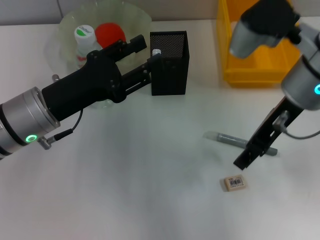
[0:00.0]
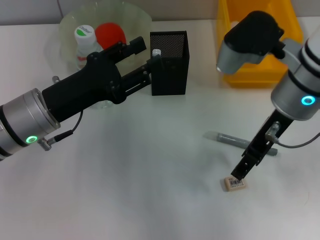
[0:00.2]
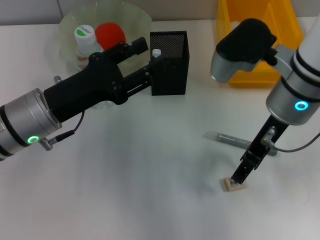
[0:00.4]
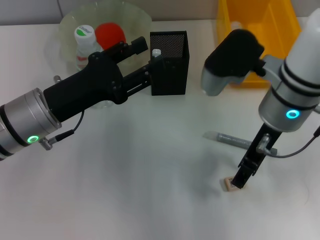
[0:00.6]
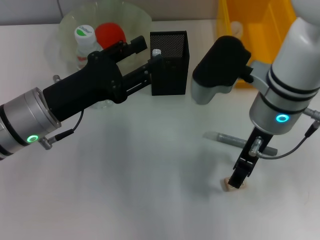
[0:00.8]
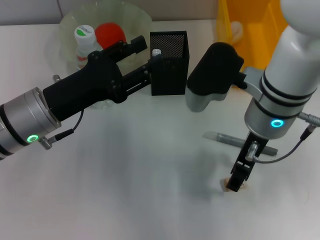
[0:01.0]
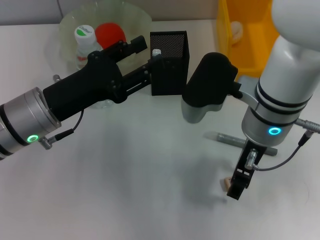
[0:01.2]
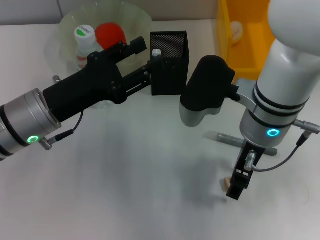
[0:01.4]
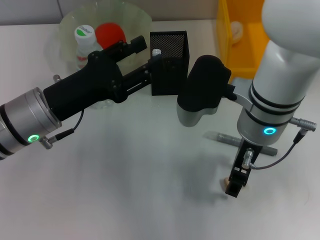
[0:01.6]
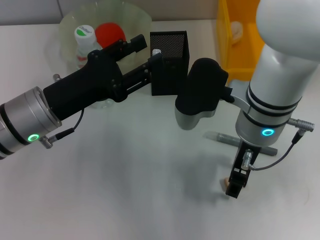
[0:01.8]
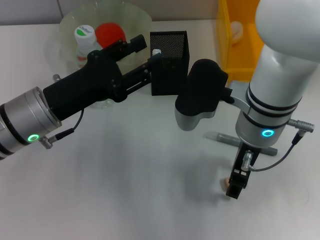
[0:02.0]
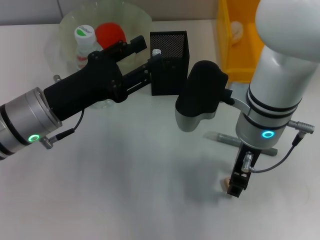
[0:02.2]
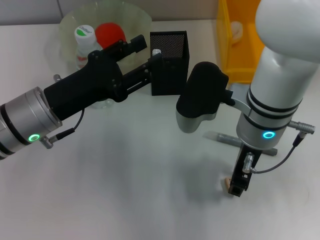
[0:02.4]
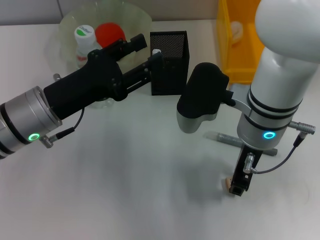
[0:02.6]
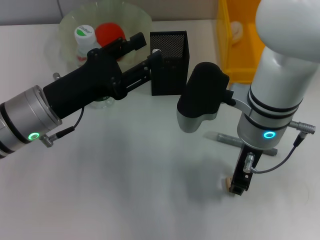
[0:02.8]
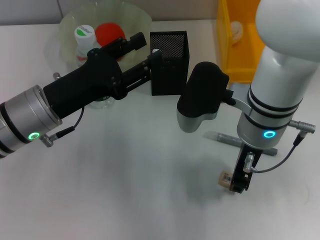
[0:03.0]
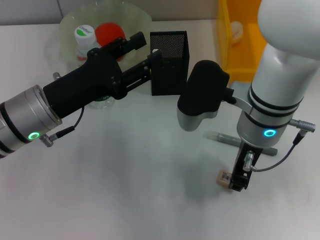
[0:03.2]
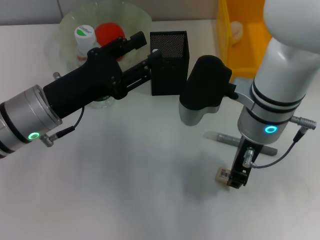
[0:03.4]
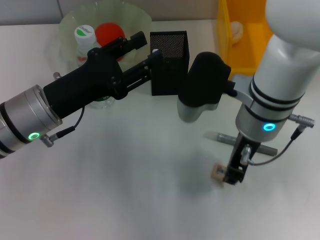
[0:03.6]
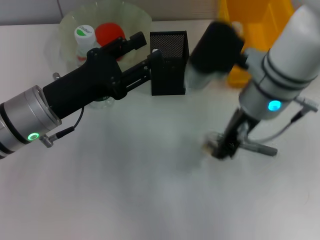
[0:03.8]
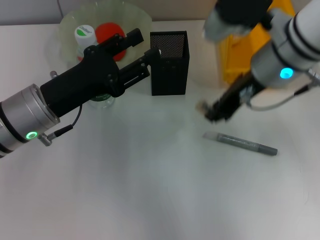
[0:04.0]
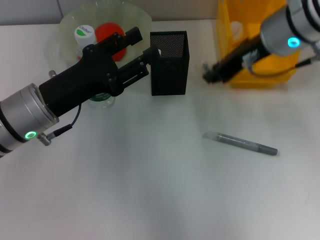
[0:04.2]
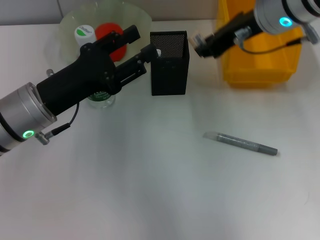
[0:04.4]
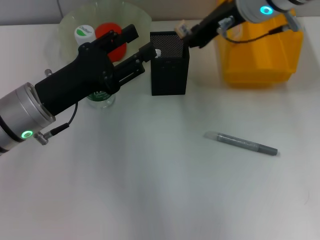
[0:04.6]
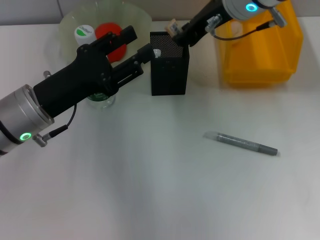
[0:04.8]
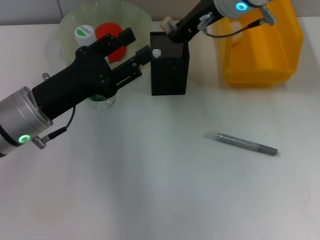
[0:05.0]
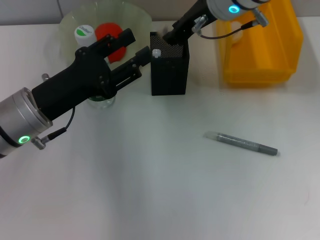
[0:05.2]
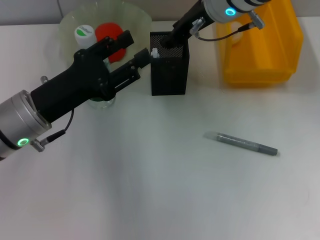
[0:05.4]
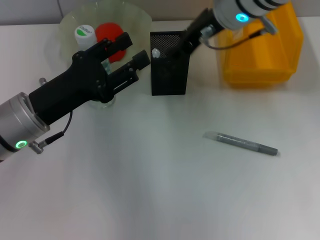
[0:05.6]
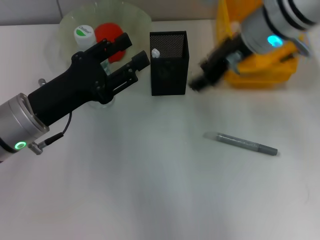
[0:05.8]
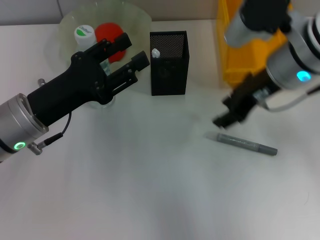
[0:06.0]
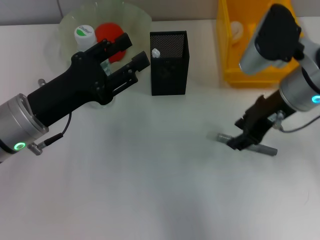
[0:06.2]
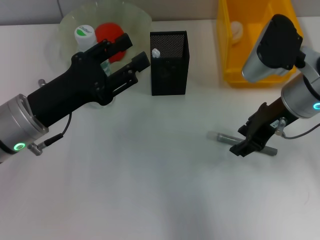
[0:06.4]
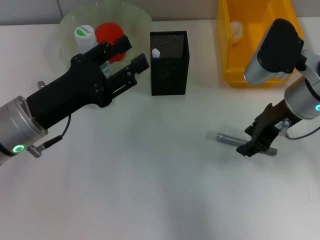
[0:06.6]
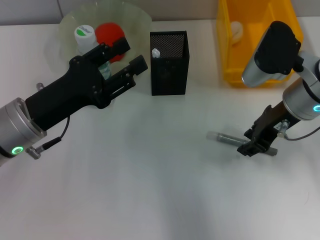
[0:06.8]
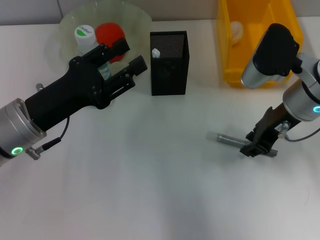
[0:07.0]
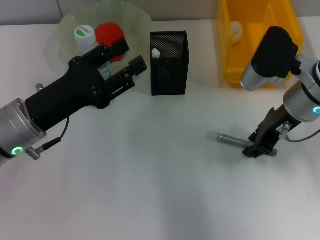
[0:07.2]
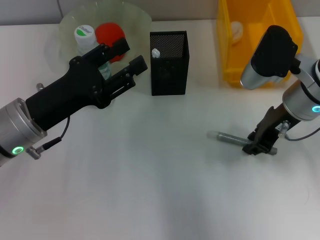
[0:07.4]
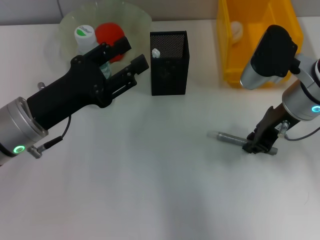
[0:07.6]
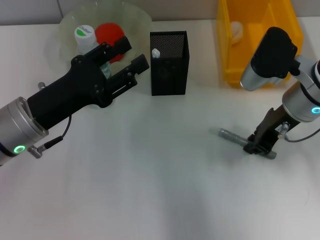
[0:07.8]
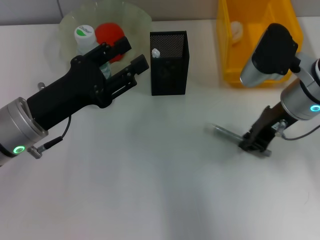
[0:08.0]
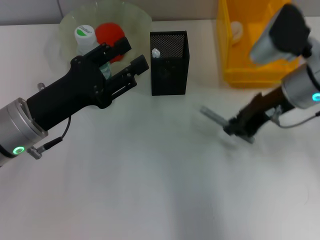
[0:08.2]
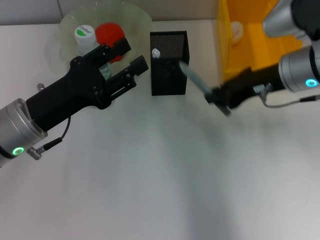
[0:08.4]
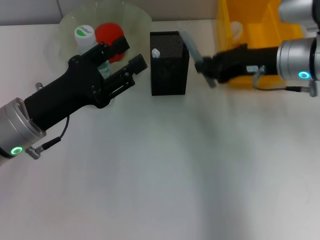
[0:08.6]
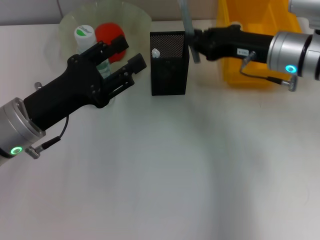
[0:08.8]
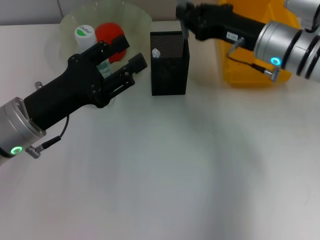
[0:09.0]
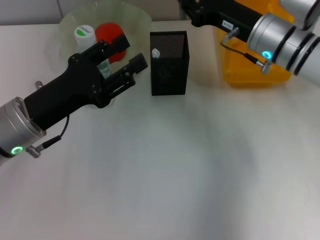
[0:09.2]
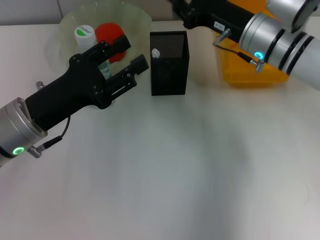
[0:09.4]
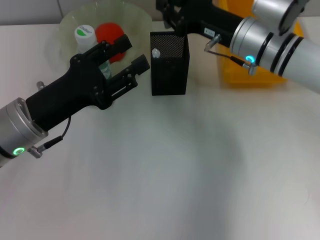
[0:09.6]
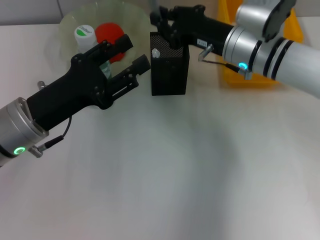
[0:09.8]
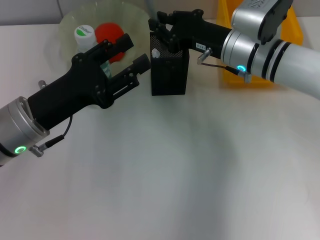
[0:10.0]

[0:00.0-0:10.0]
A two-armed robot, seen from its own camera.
Step, 0:00.0 to 0:02.6: Grab the eraser with the right hand.
Step, 0:02.8 to 0:05.6: Put the eraser into the pen holder with the right hand.
Step, 0:05.8 to 0:07.6: Grab the gray glue with the right hand.
0:00.0 to 0:01.4: The right gripper shifts roughly 5 cm to the left.
0:01.4 to 0:02.8: The right gripper closes.
0:02.8 to 0:04.2: The right gripper goes about 10 cm upward and forward.
0:04.2 to 0:05.8: The right gripper opens up.
0:05.8 to 0:07.2: The right gripper moves downward and to the right, approximately 10 cm.
0:07.2 to 0:08.6: The right gripper closes up.
0:08.6 to 0:10.0: The right gripper travels to the left by approximately 5 cm.

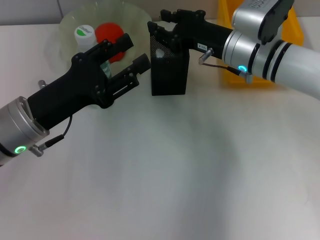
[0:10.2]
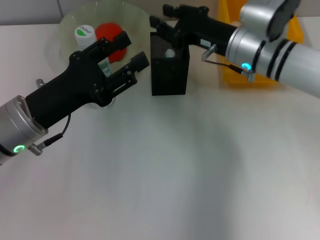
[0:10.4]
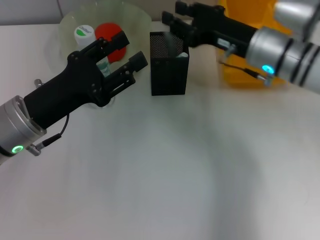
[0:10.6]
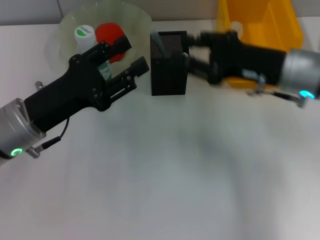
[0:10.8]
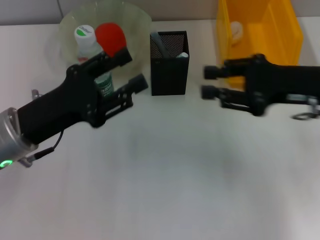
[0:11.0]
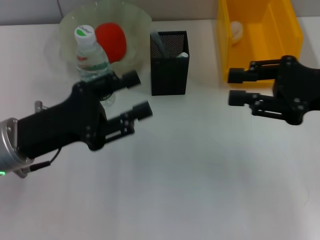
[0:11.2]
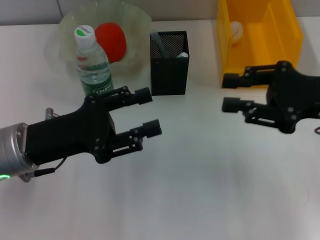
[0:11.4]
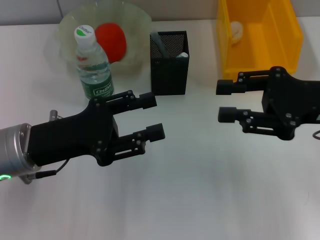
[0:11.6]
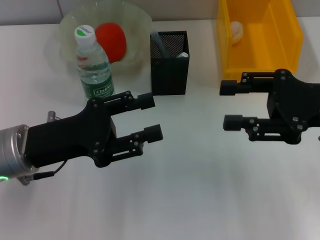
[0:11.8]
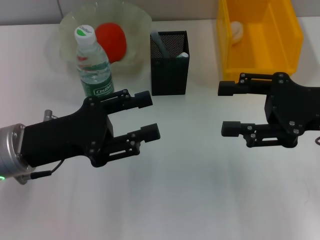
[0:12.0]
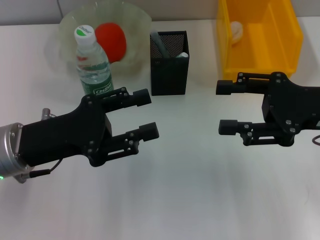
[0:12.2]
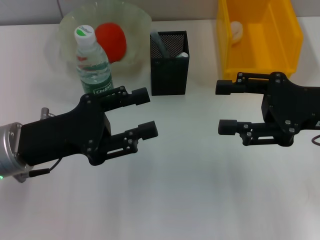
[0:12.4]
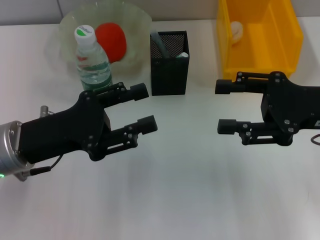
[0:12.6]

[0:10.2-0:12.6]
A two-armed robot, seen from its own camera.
0:10.2 to 0:11.4: The right gripper goes some 15 cm to the right, backward and upward.
0:11.4 to 0:12.6: The right gripper opens up.

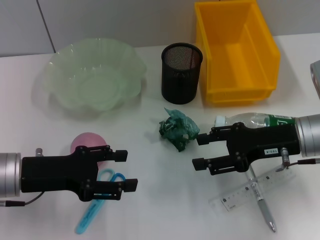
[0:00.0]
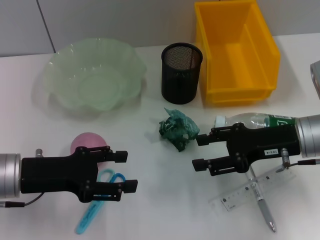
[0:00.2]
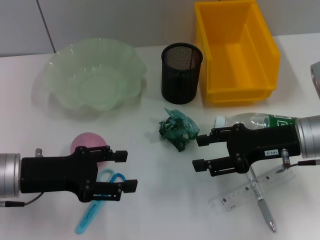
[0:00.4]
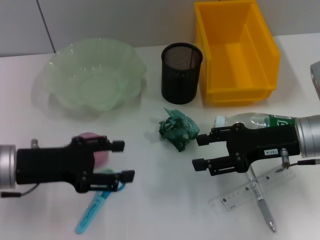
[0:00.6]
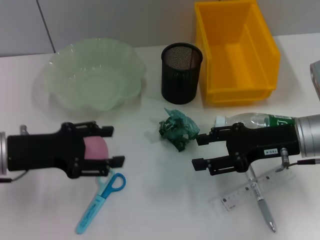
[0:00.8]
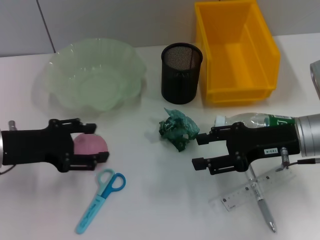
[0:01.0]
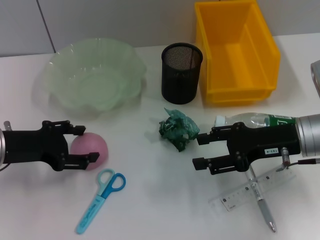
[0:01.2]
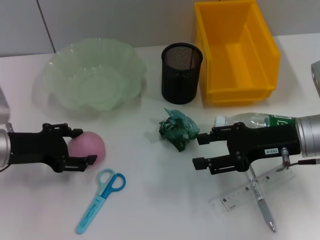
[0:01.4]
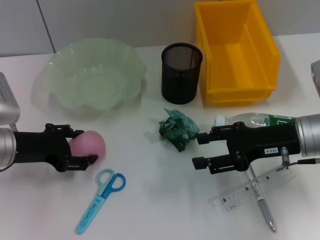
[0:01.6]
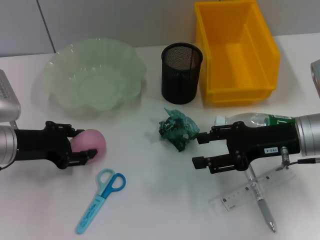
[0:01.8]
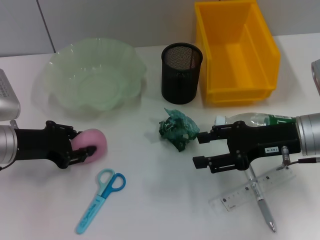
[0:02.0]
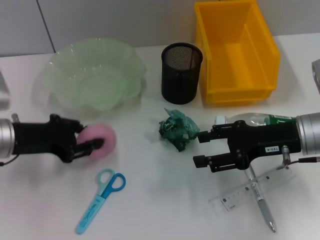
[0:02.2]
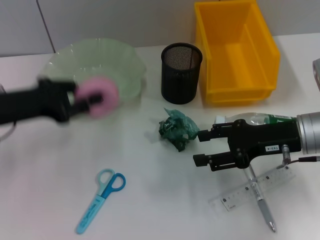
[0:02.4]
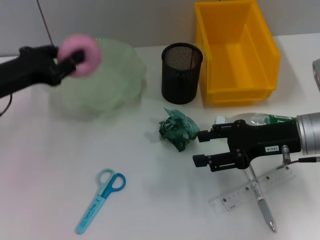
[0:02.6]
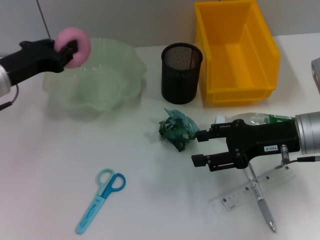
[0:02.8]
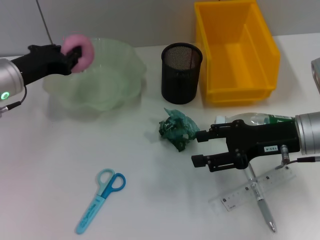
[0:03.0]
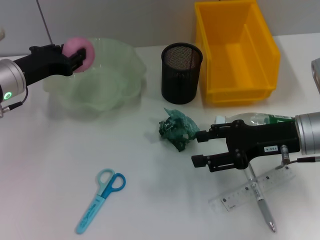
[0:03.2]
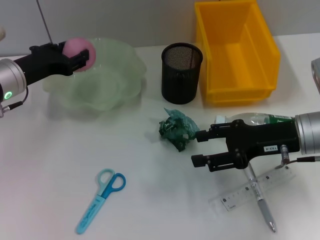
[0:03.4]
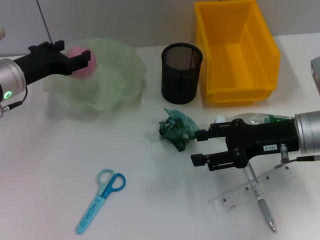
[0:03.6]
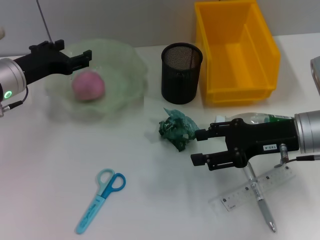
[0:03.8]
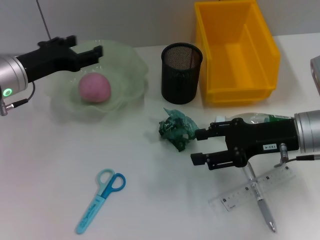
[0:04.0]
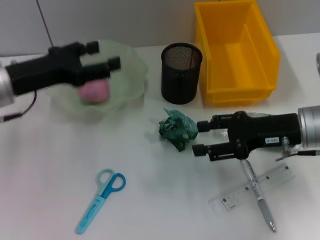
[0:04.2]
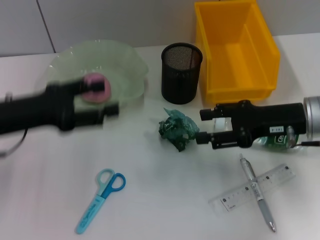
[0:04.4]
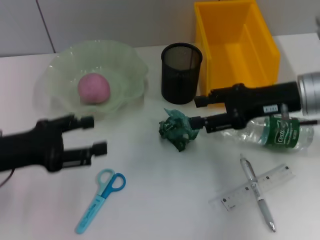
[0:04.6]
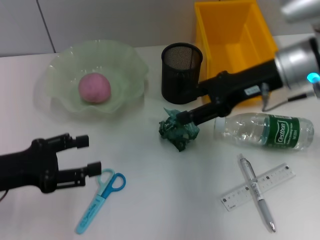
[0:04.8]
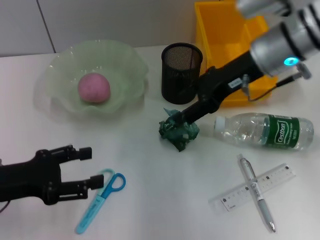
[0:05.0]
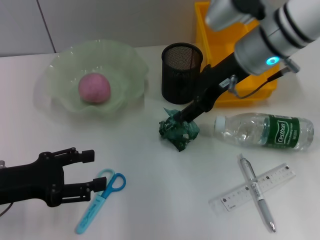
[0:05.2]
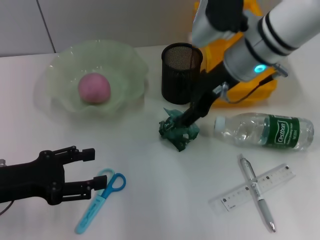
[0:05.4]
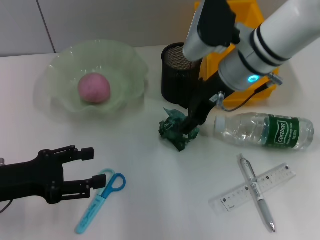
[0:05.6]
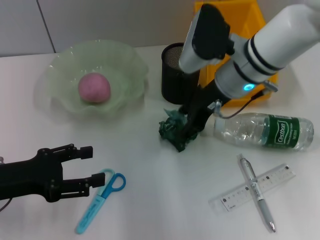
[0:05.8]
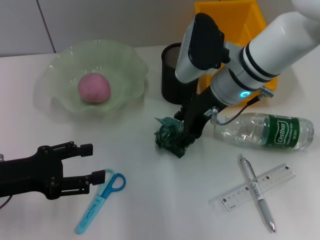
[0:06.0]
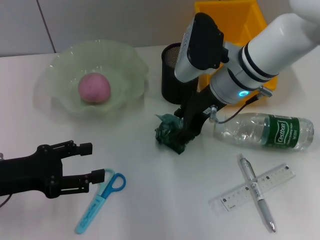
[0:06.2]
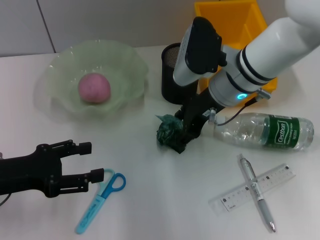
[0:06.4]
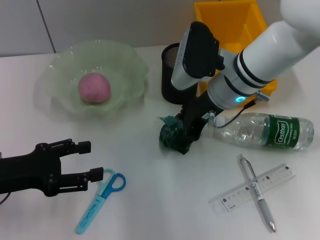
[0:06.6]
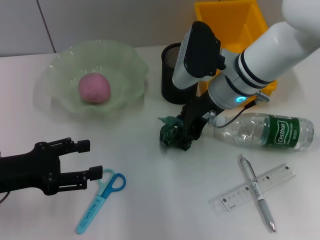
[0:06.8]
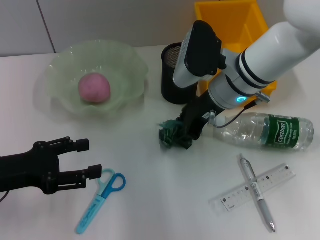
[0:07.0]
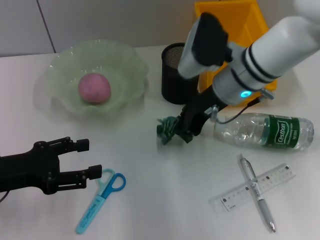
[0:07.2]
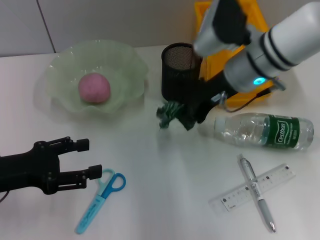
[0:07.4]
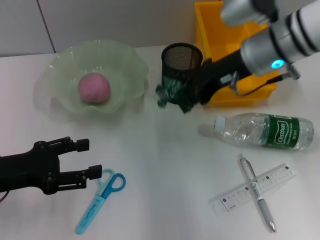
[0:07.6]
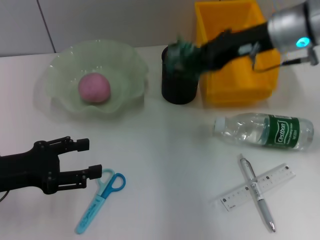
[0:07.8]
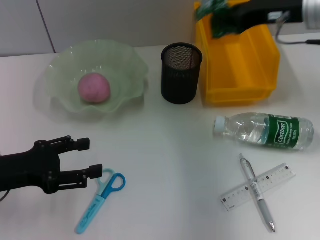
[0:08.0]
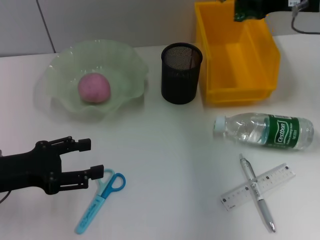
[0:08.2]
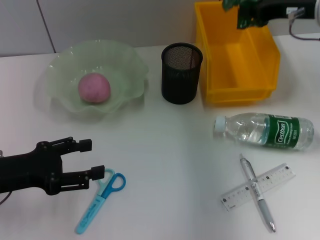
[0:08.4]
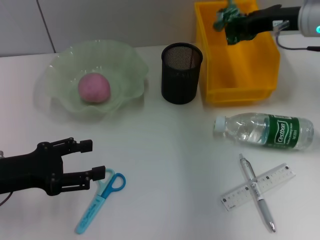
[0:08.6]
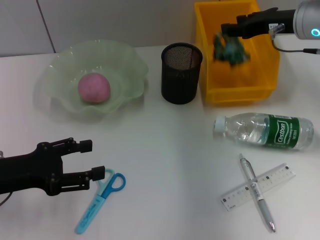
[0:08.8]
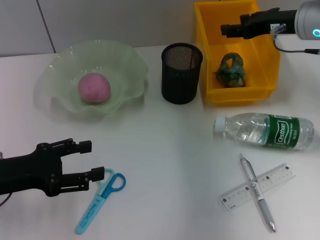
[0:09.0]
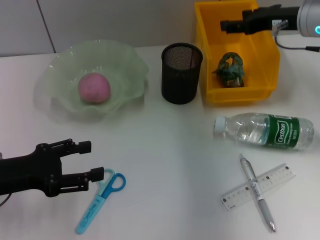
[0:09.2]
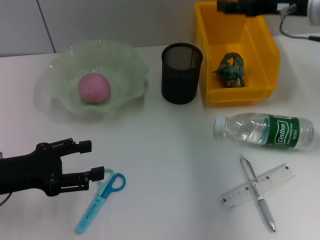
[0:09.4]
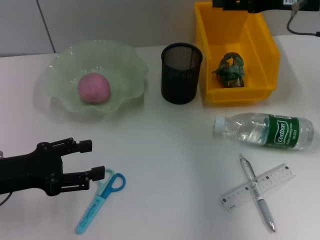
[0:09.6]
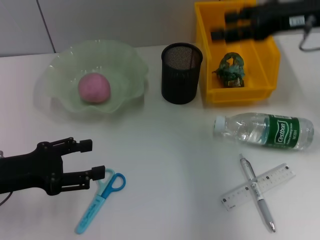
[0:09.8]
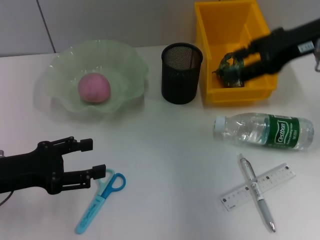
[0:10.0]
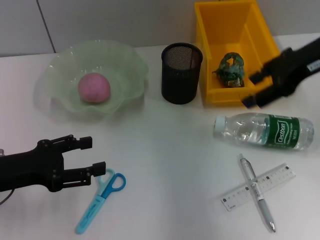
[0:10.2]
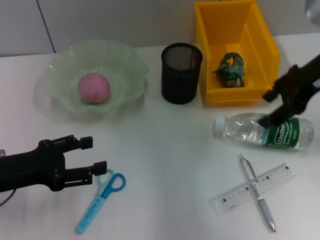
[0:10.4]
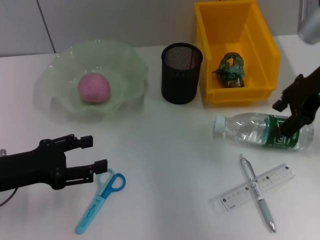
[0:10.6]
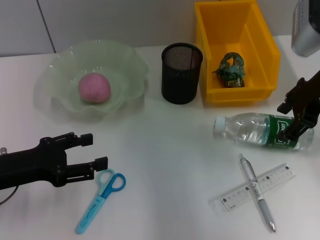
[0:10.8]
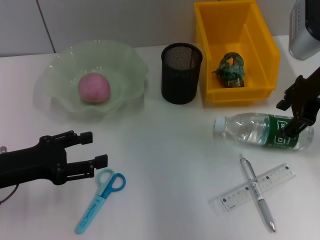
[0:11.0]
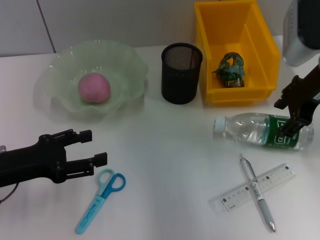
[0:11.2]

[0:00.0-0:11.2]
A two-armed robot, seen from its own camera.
Step, 0:00.0 to 0:01.6: Grab the peach with the left hand.
Step, 0:02.0 to 0:03.6: Place the peach into the fruit bowl with the left hand.
Step, 0:04.0 to 0:06.8: Grab the plastic with the right hand.
Step, 0:07.0 to 0:09.0: Place the plastic into the trash can with the right hand.
0:01.6 to 0:03.2: The left gripper heads forward, covering roughly 5 cm, and closes.
0:03.2 to 0:04.8: The right gripper is displaced upward and forward by roughly 10 cm. The left gripper moves backward, roughly 15 cm, and opens up.
0:04.8 to 0:06.4: The right gripper travels to the left by about 10 cm.
0:06.4 to 0:08.0: The right gripper is displaced to the right and upward by approximately 15 cm, and closes up.
0:08.0 to 0:09.6: The right gripper opens.
